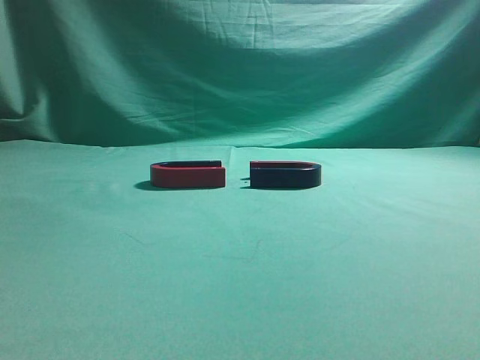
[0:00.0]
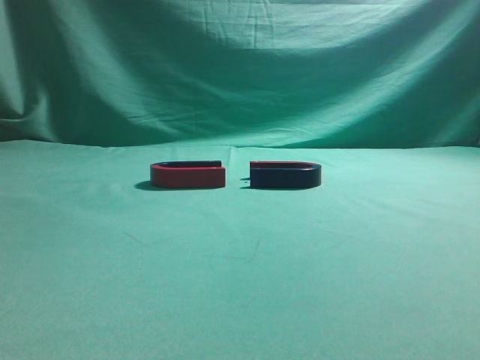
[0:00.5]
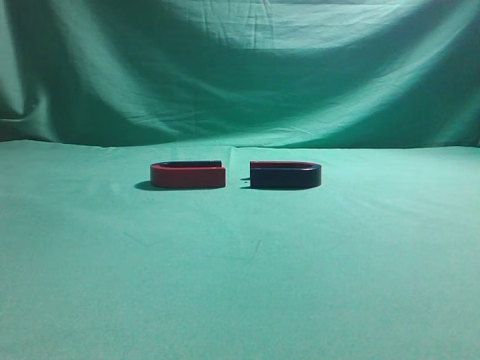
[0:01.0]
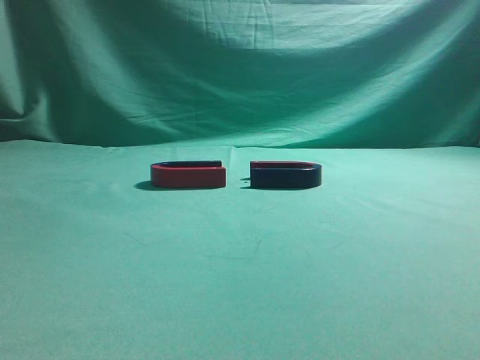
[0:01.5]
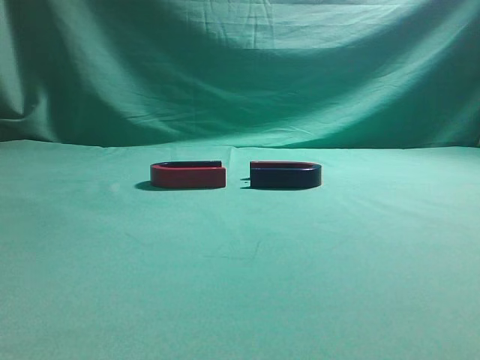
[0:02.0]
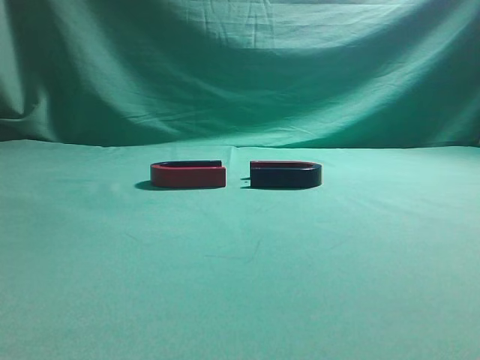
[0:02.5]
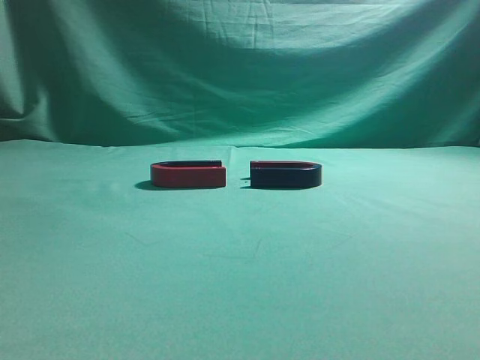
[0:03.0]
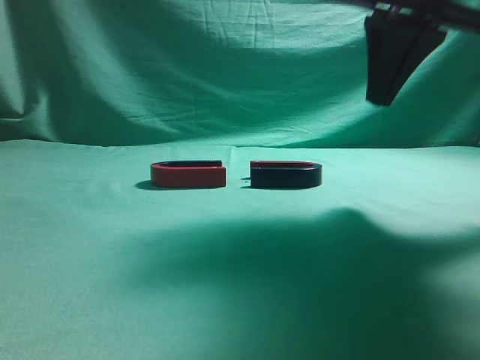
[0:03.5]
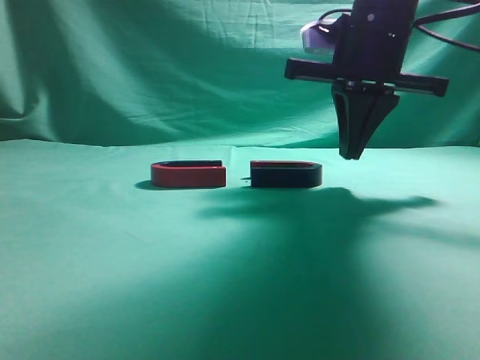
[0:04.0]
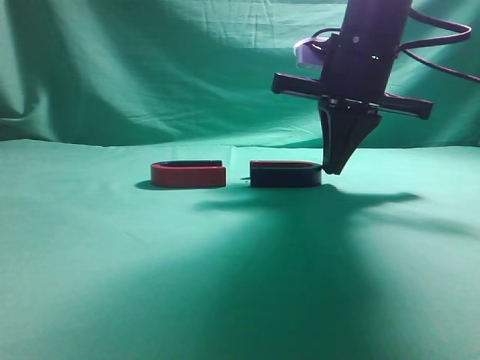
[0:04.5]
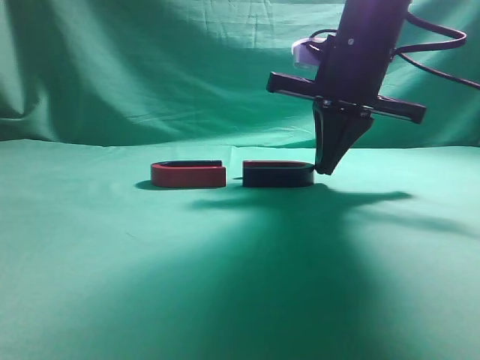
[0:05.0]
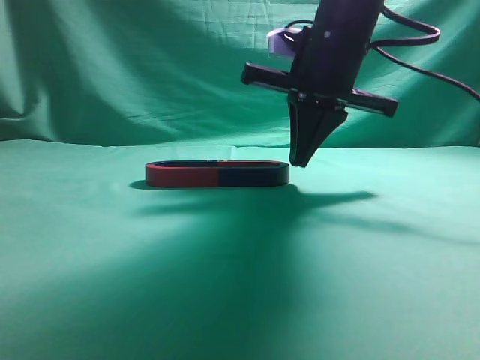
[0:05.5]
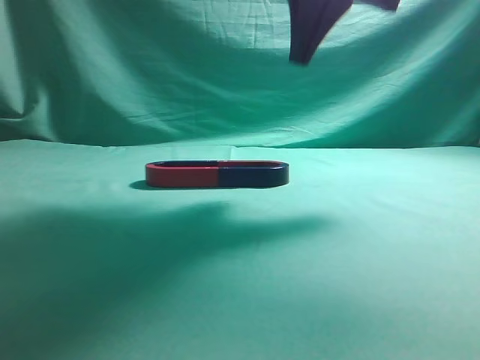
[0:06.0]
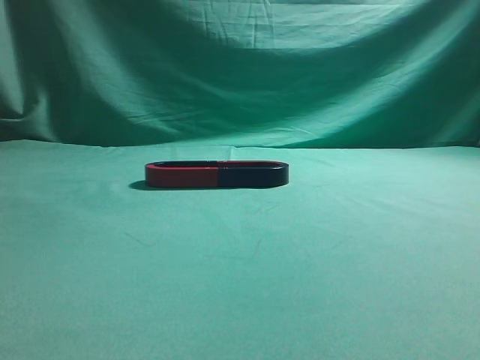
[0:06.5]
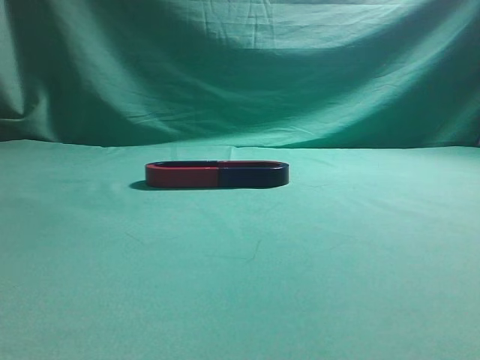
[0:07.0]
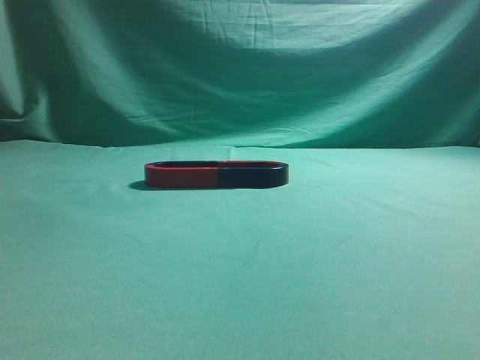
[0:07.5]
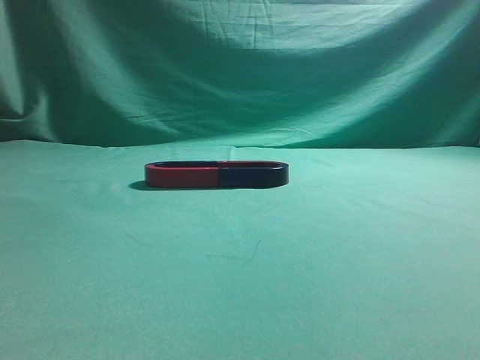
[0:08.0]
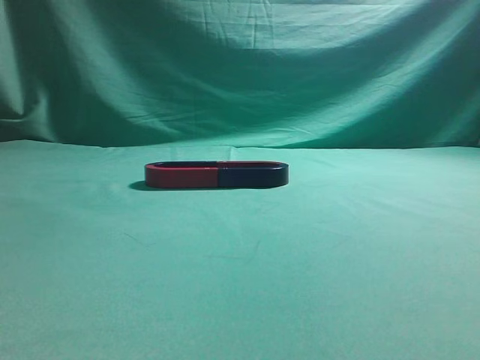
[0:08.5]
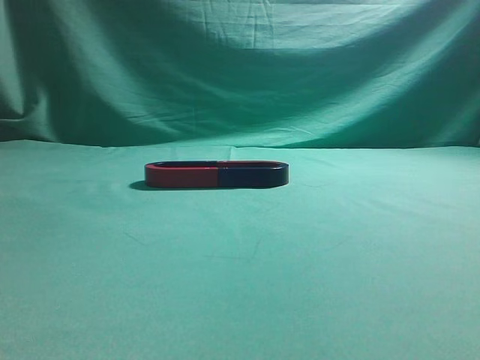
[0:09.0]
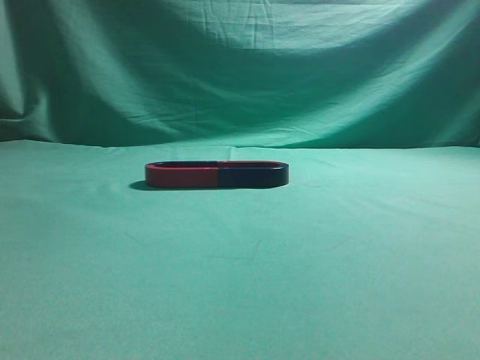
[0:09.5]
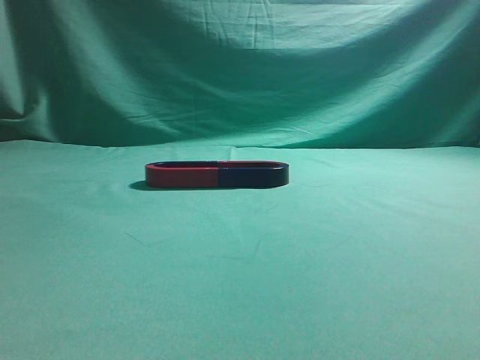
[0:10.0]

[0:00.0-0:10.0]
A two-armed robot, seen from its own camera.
Task of the whole recording: push the magnet on the table from its original position to another position.
Step, 0:00.0 to 0:05.5: Push the magnet on the right to connect the magnet on the left.
0:02.0 to 0:04.0: The right gripper shifts about 35 cm forward and to the left.
0:04.0 to 0:06.0: The right gripper travels upward by some 10 cm.
0:06.0 to 0:08.0: The right gripper travels backward and to the right by about 40 cm.
